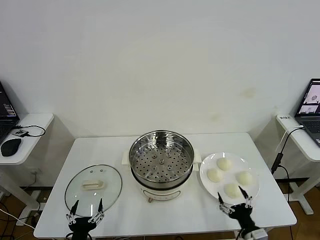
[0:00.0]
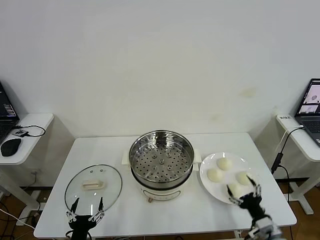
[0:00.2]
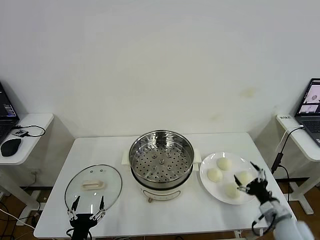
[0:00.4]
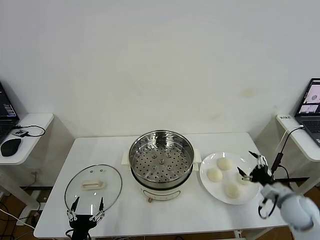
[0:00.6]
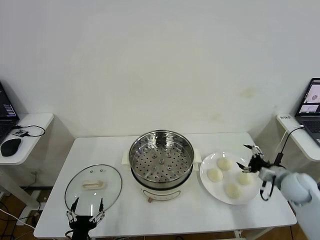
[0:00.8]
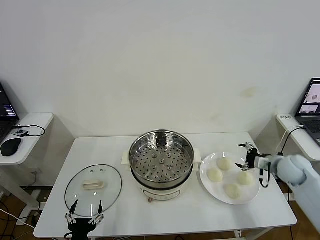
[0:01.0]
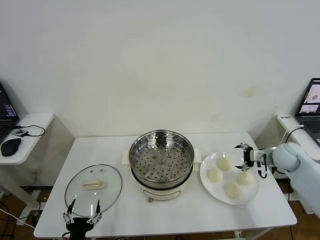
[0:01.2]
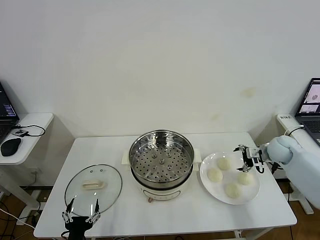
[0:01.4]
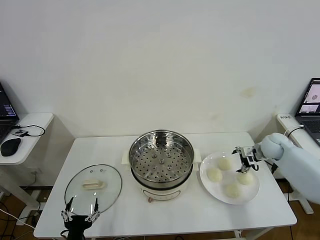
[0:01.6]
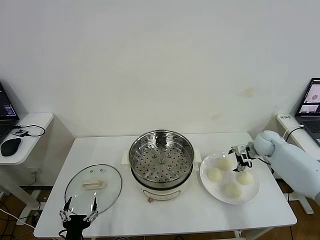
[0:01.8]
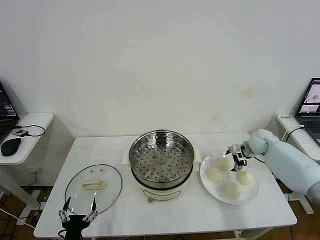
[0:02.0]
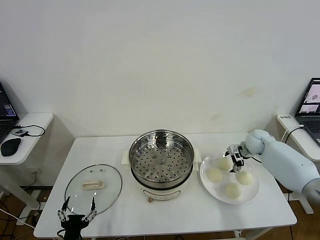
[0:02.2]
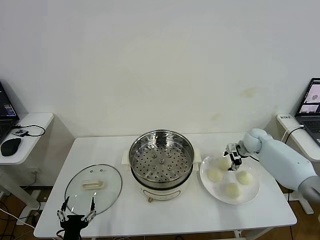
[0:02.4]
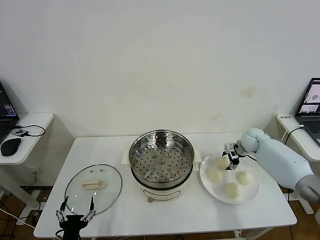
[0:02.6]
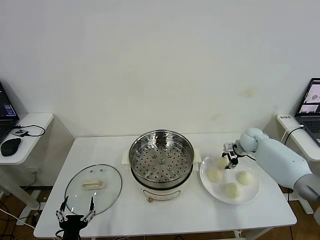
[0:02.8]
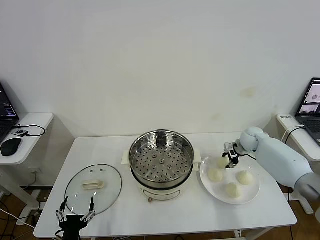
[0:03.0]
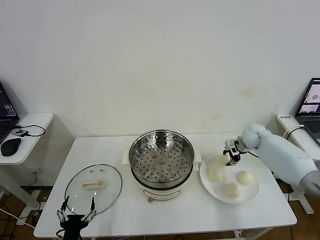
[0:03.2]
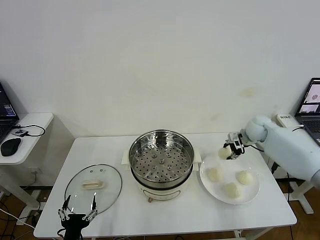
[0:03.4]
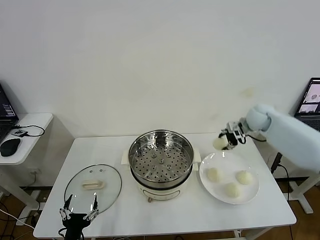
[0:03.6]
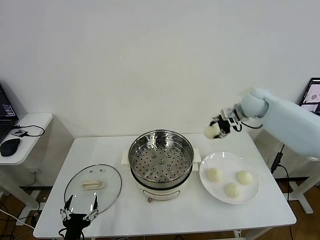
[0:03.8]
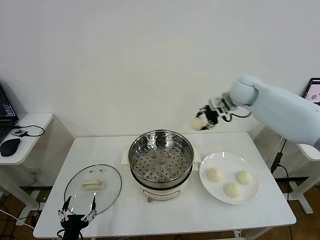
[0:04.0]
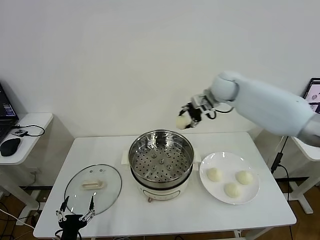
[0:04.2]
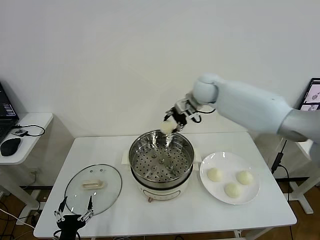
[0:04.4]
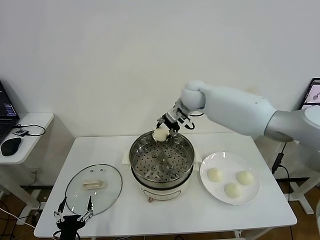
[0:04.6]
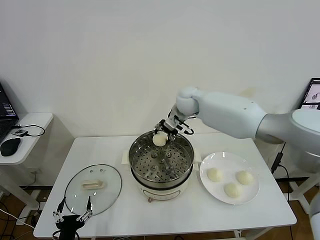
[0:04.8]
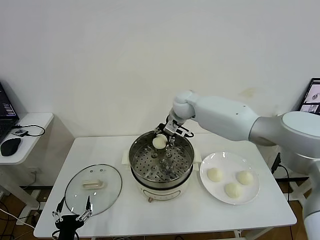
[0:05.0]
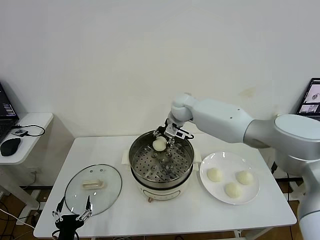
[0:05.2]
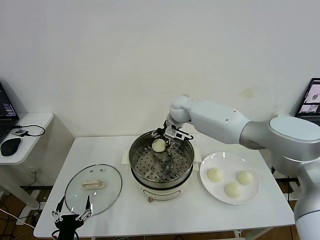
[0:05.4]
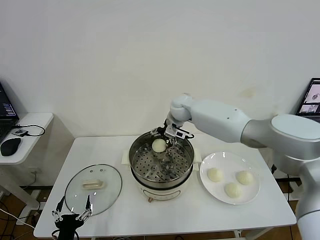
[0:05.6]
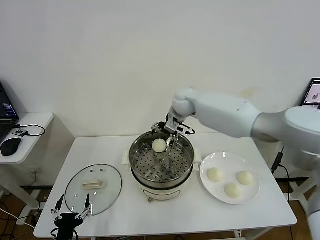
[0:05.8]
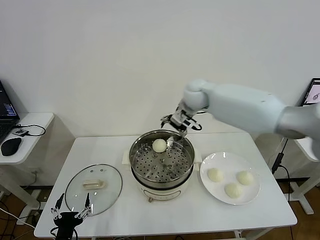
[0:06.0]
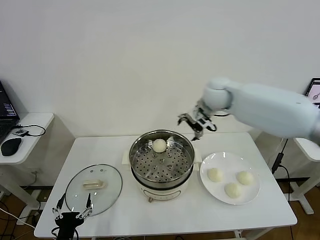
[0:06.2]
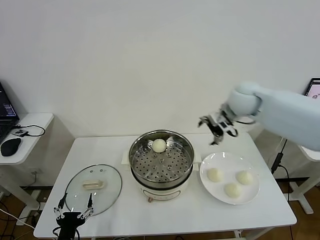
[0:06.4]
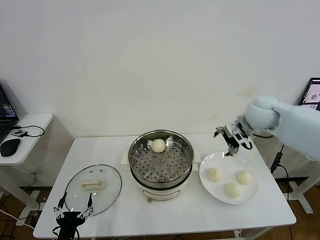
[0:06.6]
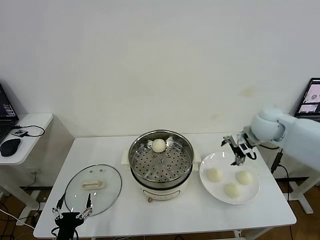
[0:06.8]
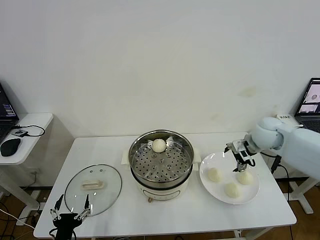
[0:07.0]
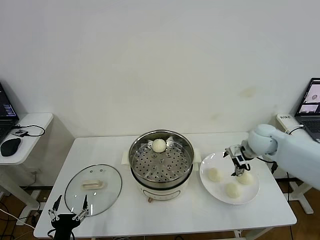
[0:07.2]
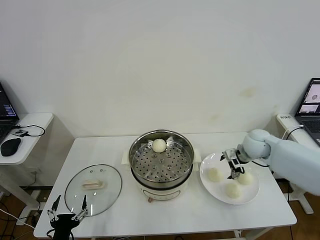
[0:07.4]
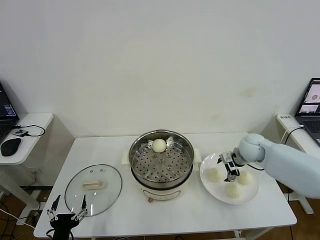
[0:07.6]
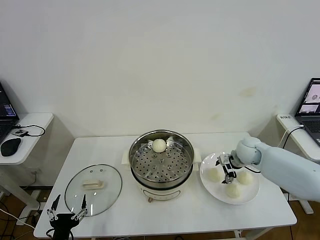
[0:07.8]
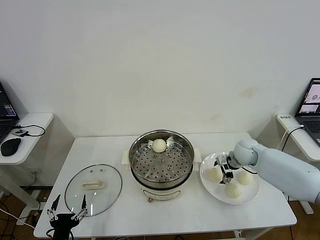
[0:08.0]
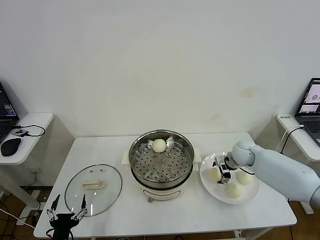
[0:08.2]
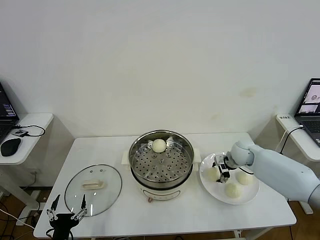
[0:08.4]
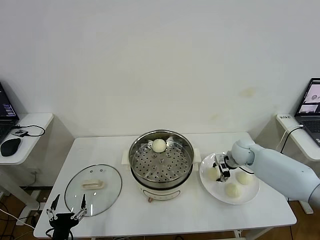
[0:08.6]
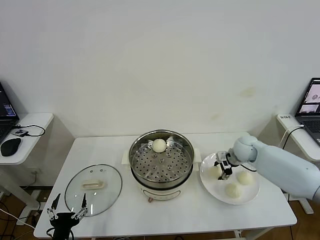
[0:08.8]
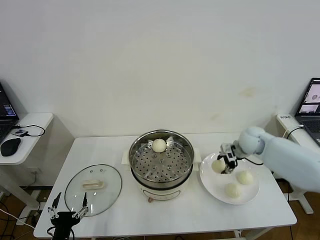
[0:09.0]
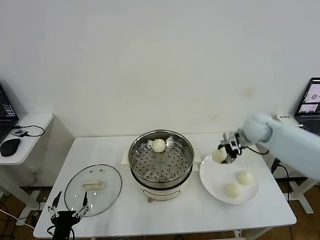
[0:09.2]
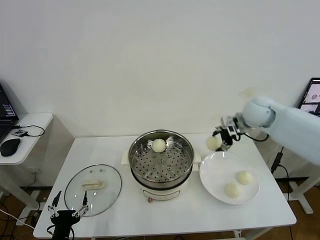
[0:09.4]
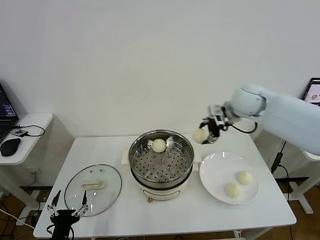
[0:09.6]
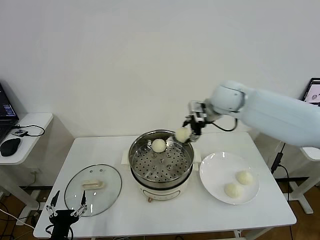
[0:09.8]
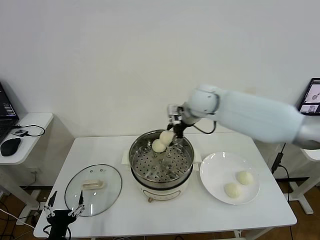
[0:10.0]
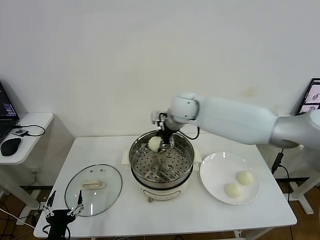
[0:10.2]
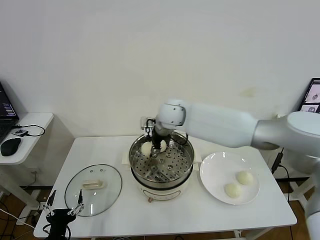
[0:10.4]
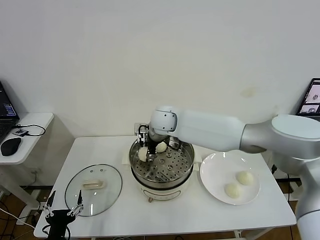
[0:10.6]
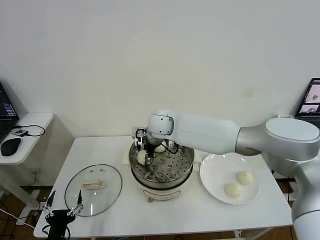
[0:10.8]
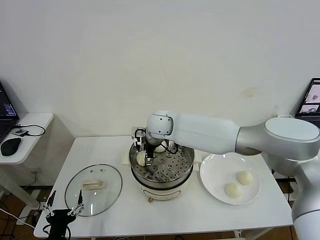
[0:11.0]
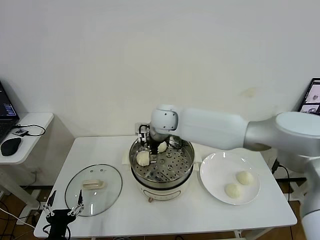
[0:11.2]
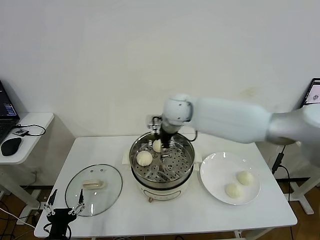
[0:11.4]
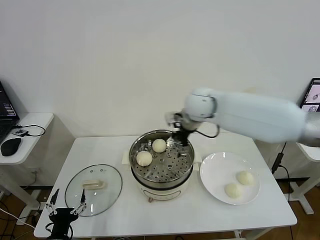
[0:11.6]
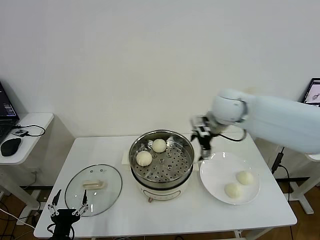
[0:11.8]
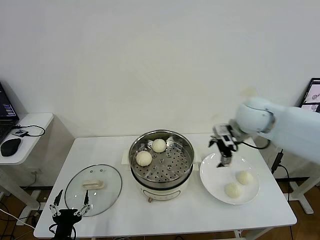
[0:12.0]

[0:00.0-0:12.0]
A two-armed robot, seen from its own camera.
Step, 0:00.0 to 0:02.8: Grasp the baozi in the plate with right gripper.
Step, 0:03.0 to 0:05.4: Place the baozi on the steamer with right gripper.
Step, 0:05.6 to 0:08.6: Grasp the baozi in the plate with right gripper.
Step, 0:08.8 to 0:11.0: Place the baozi on the steamer with right gripper.
0:01.6 to 0:03.0: The right gripper changes place by roughly 5 cm, and closes up.
0:03.0 to 0:04.4: The right gripper heads to the left and upward, covering approximately 30 cm.
0:04.4 to 0:06.0: The right gripper goes downward and returns, approximately 10 cm each way, and opens its fingers.
0:06.0 to 0:07.6: The right gripper is displaced downward and to the right by some 25 cm.
0:07.6 to 0:09.0: The right gripper shifts by about 5 cm, and closes up.
0:09.0 to 0:10.4: The right gripper moves to the left, some 30 cm.
0:10.4 to 0:12.0: The right gripper goes approximately 25 cm to the right, and opens.

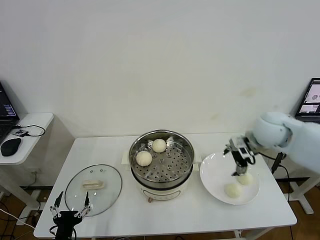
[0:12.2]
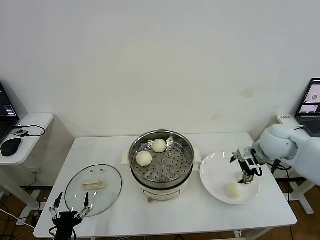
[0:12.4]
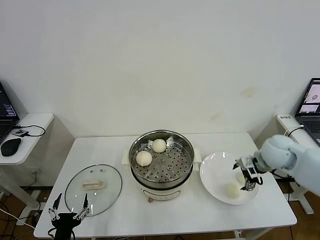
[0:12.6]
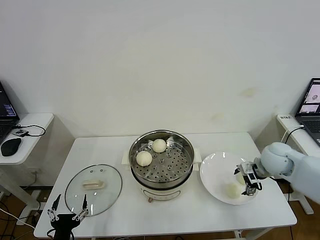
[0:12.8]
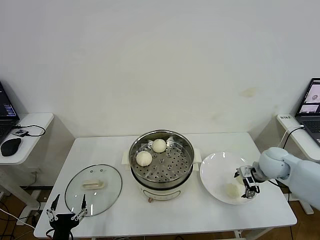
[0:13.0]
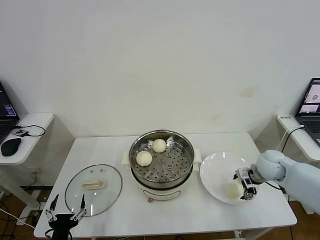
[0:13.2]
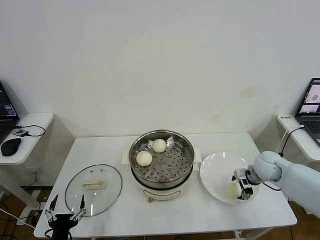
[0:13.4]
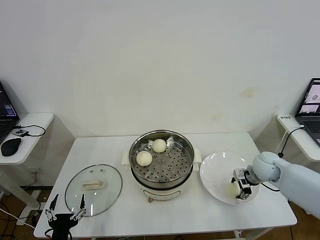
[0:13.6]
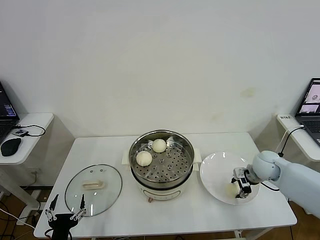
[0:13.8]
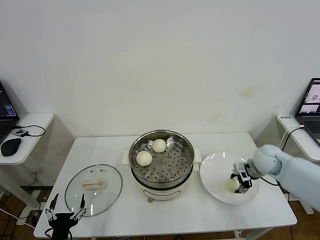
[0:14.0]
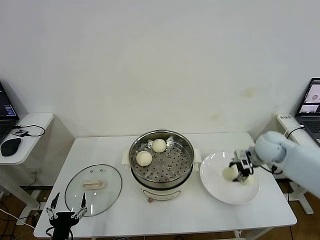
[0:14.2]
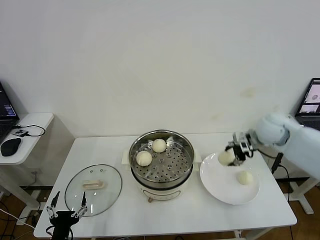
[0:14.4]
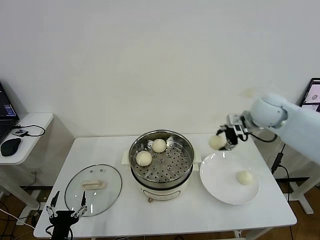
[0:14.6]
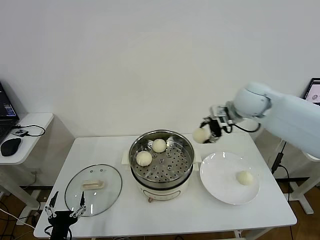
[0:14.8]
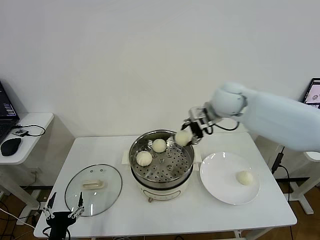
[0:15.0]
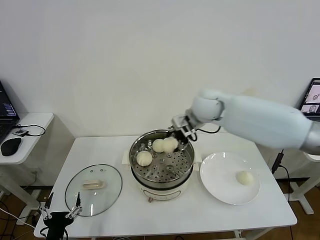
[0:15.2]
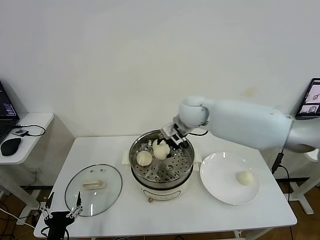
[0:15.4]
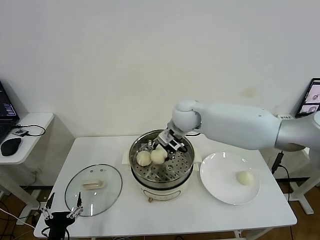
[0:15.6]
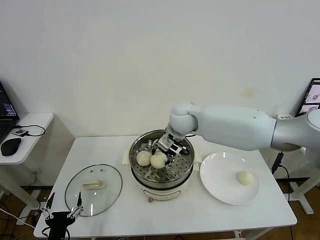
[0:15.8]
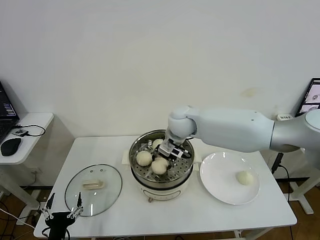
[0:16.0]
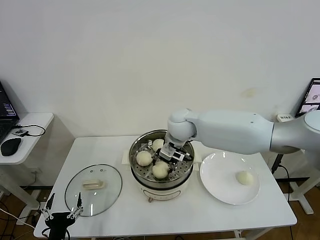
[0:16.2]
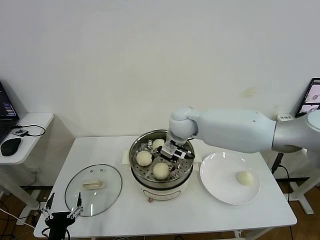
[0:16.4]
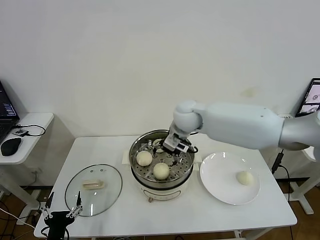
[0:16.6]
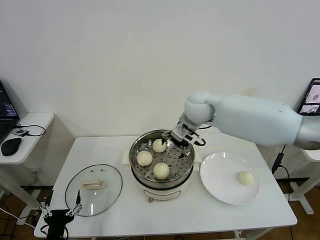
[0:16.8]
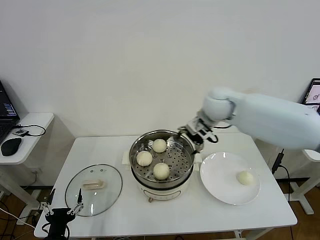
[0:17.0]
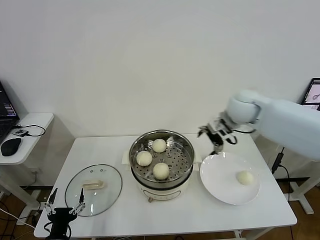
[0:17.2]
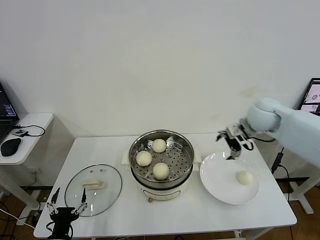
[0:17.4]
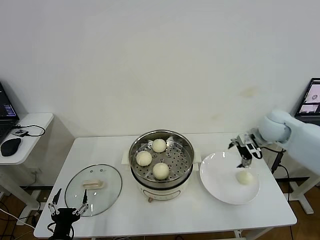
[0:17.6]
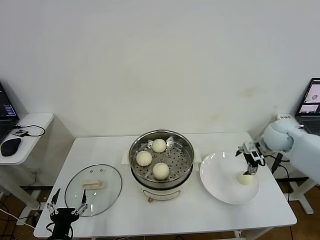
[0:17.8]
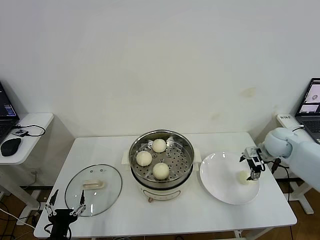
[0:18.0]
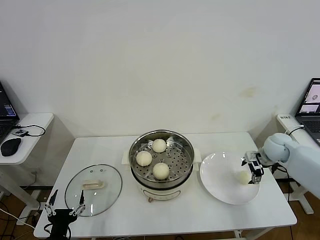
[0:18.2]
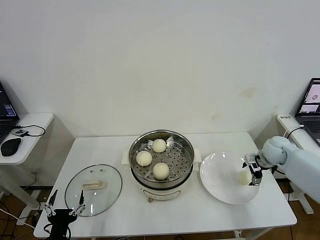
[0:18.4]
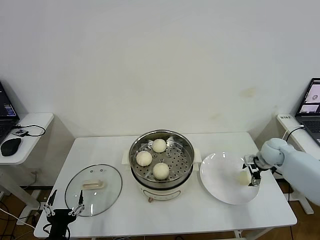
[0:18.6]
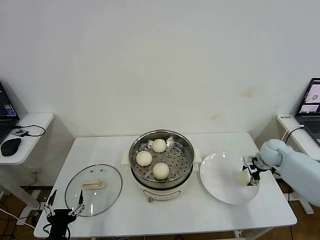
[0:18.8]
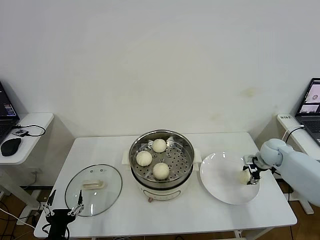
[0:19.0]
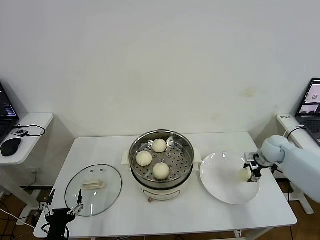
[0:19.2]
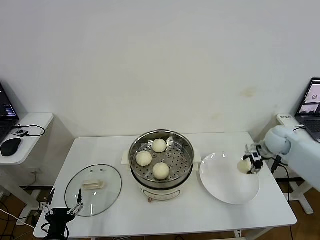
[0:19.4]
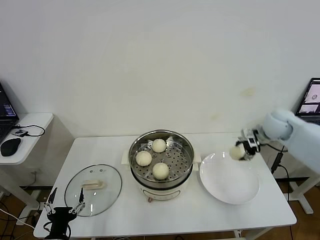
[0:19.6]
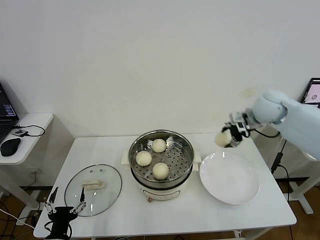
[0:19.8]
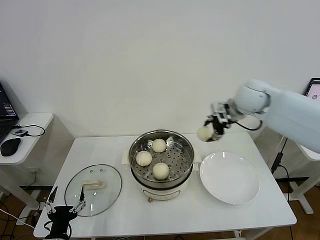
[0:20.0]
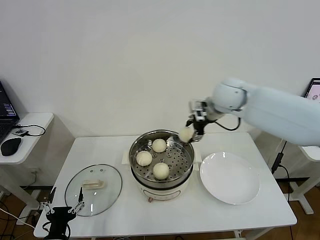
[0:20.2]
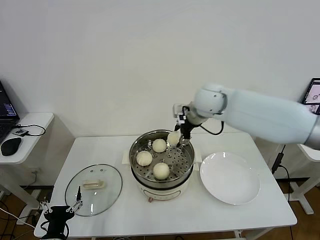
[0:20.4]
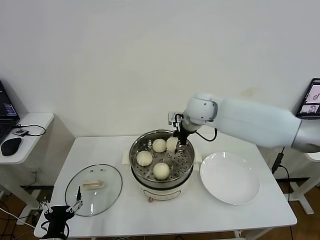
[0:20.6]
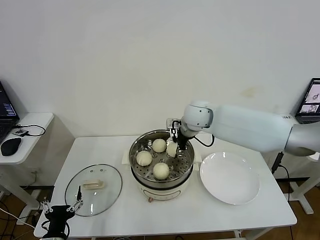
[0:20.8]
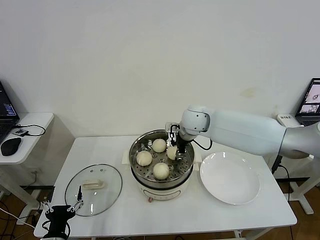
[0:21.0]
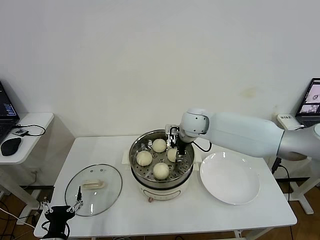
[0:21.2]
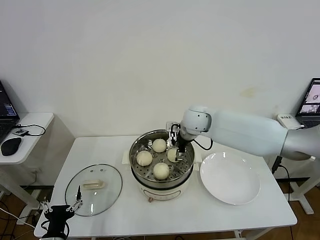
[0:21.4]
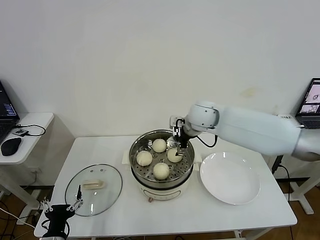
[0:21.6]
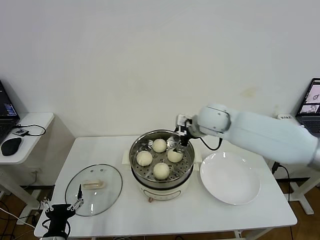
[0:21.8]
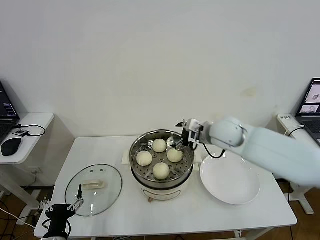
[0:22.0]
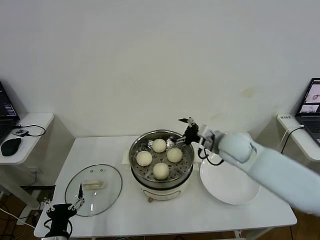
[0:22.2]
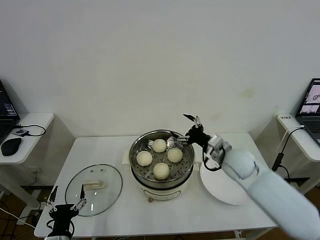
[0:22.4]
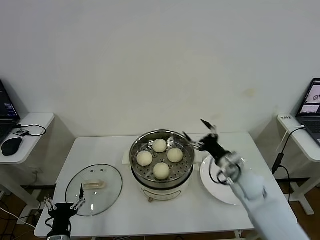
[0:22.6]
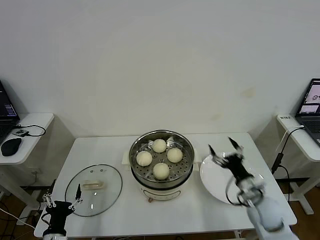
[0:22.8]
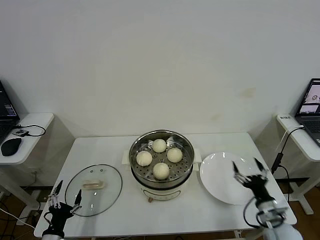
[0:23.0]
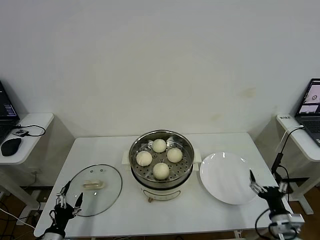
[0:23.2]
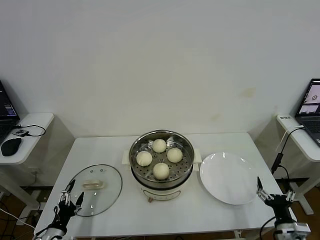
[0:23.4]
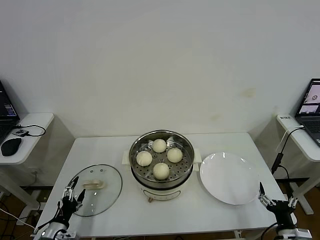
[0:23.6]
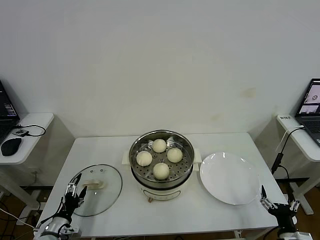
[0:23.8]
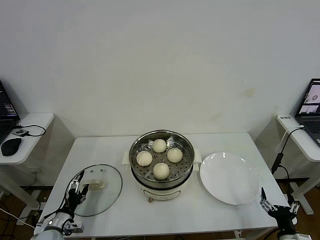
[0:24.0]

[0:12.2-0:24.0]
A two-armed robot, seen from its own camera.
Step, 0:12.2 to 0:13.8: Grasp the baozi in the plate with right gripper.
Step, 0:14.0 to 0:16.2: Place the baozi on the steamer with right gripper.
Step, 0:16.4 to 0:19.0: Grasp the baozi in the plate with right gripper.
Step, 0:19.2 to 0:21.2: Place the baozi on the steamer with right gripper.
0:12.2 to 0:13.6: The right gripper travels downward by some 15 cm, and closes up.
0:13.6 to 0:15.2: The right gripper is displaced to the left and upward by approximately 30 cm.
0:15.2 to 0:16.6: The right gripper opens.
0:16.6 to 0:18.2: The right gripper is displaced to the right and downward by some 35 cm.
0:18.2 to 0:19.6: The right gripper travels upward by about 10 cm, and closes its fingers.
0:19.6 to 0:21.0: The right gripper shifts some 25 cm to the left.
0:21.0 to 0:22.6: The right gripper moves backward, to the right and downward, some 25 cm, and opens.
0:22.6 to 0:24.0: The right gripper is displaced backward, to the right and downward by roughly 30 cm, while the left gripper travels forward, to the left and downward by some 15 cm.
